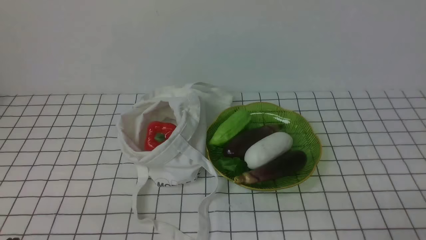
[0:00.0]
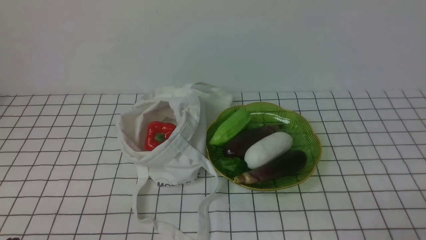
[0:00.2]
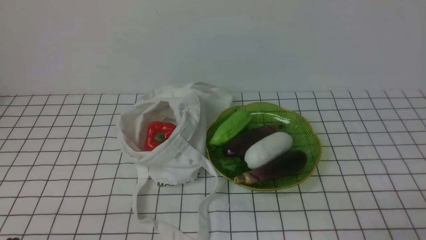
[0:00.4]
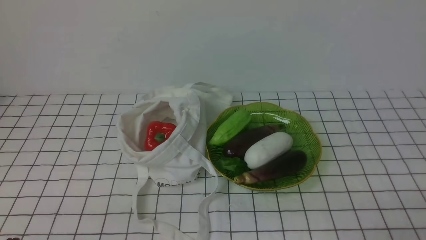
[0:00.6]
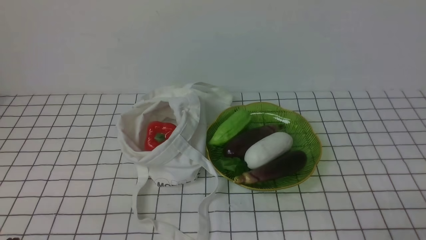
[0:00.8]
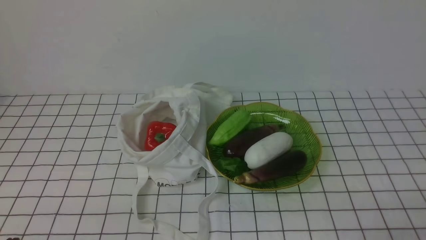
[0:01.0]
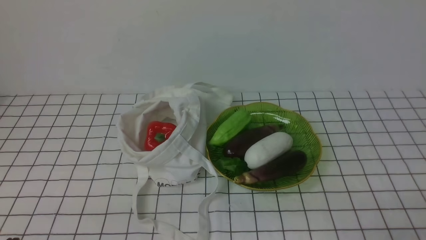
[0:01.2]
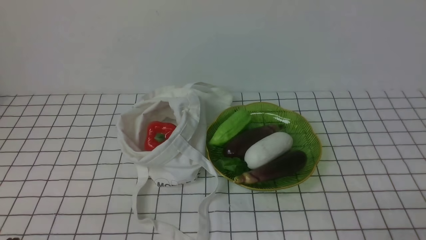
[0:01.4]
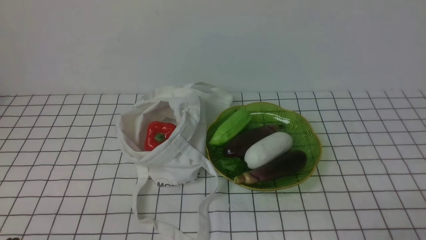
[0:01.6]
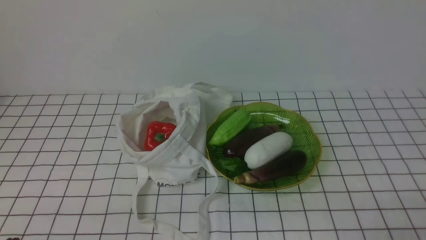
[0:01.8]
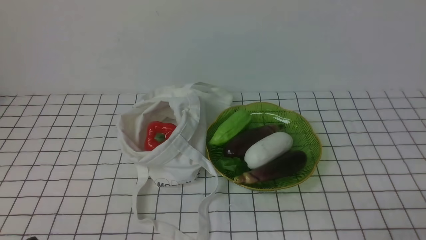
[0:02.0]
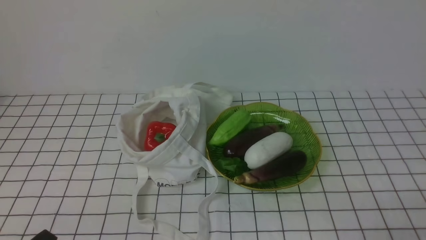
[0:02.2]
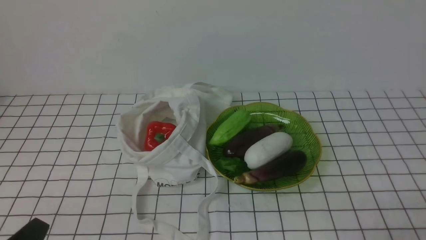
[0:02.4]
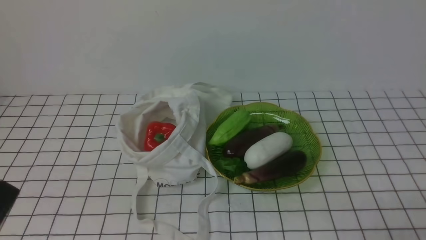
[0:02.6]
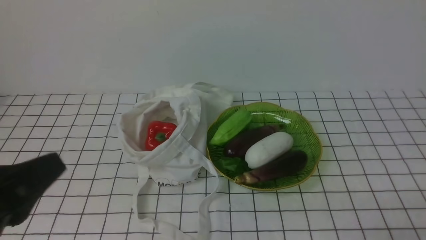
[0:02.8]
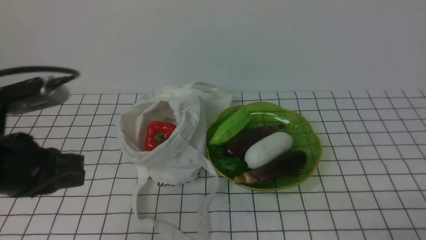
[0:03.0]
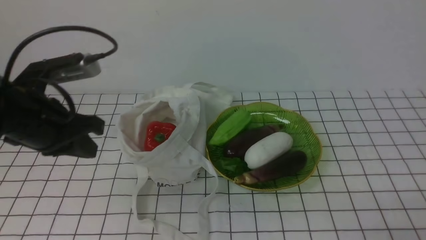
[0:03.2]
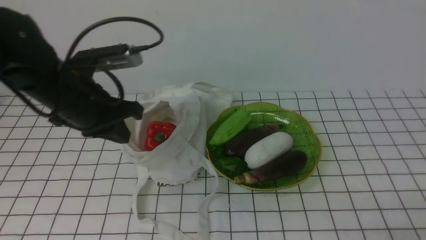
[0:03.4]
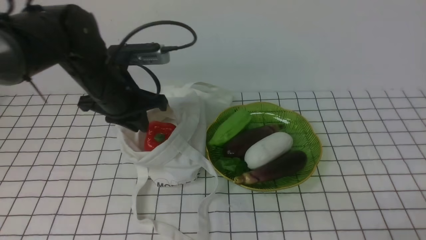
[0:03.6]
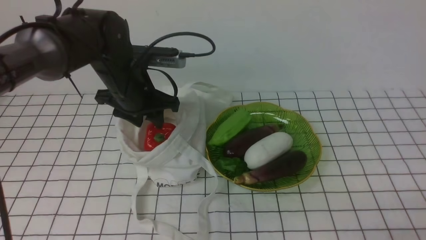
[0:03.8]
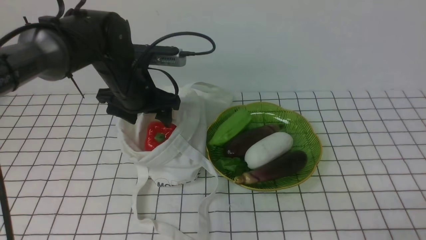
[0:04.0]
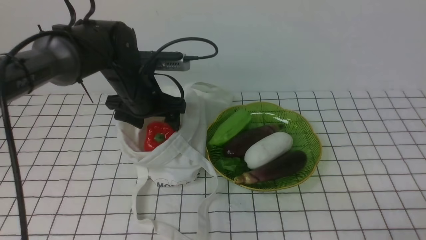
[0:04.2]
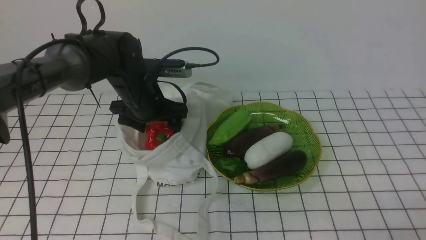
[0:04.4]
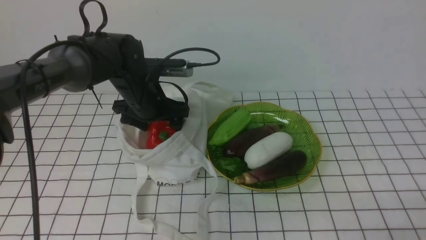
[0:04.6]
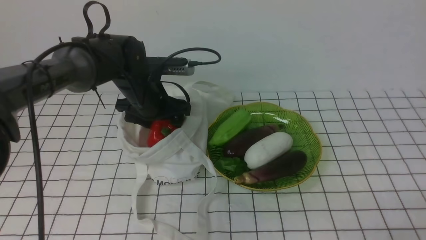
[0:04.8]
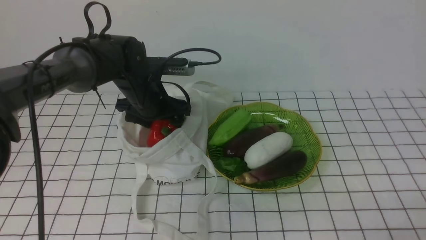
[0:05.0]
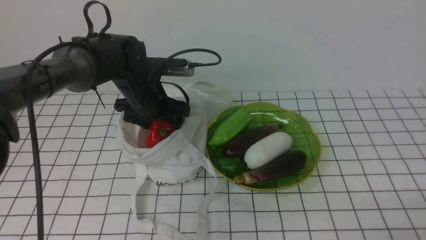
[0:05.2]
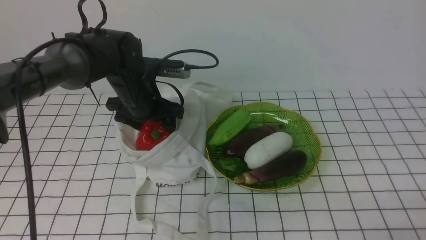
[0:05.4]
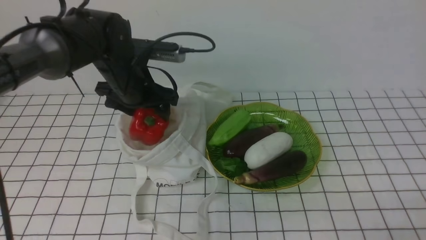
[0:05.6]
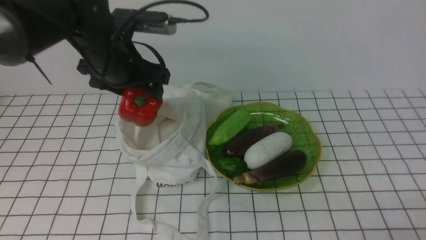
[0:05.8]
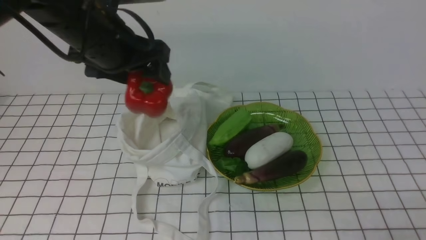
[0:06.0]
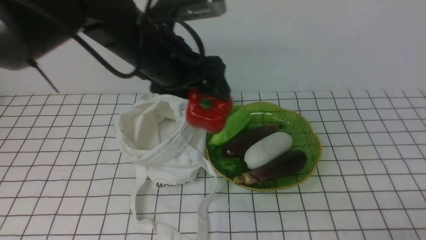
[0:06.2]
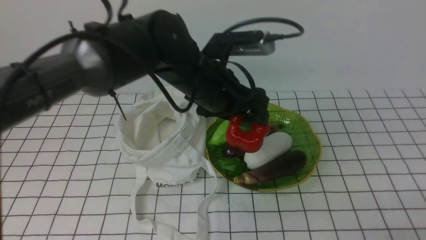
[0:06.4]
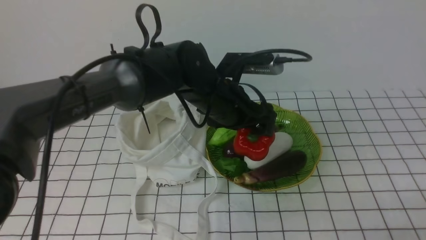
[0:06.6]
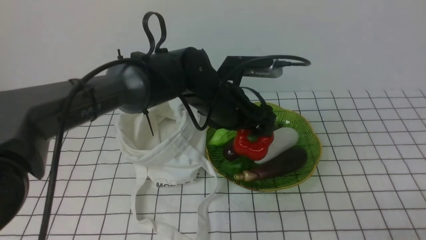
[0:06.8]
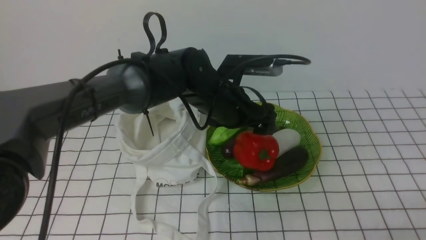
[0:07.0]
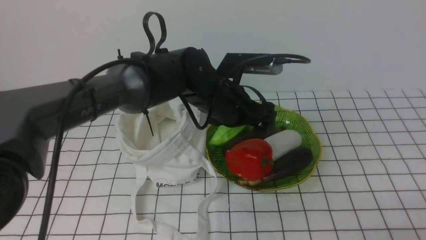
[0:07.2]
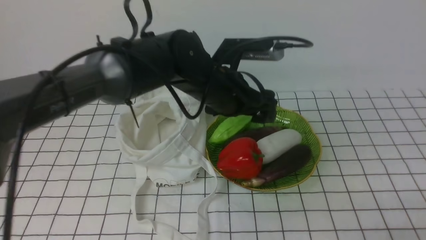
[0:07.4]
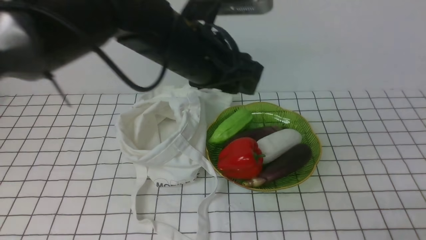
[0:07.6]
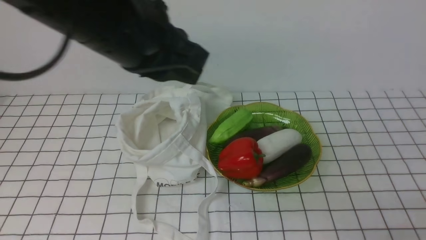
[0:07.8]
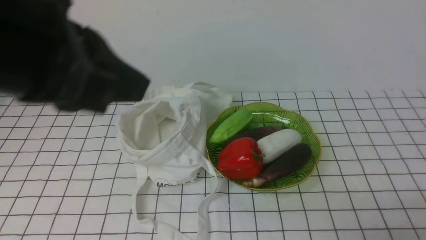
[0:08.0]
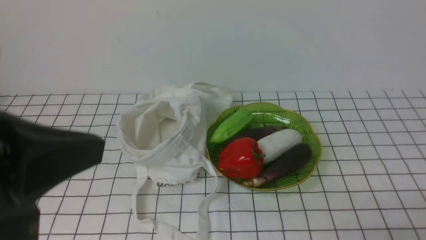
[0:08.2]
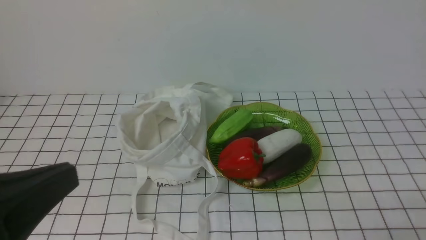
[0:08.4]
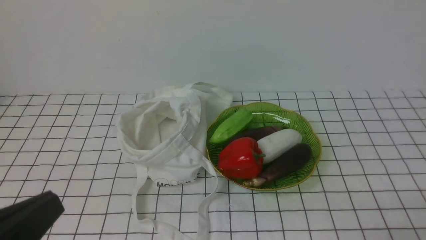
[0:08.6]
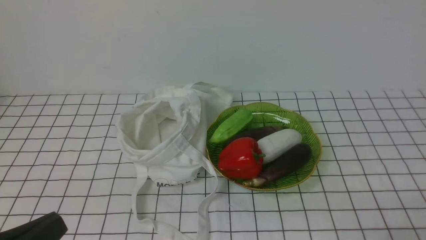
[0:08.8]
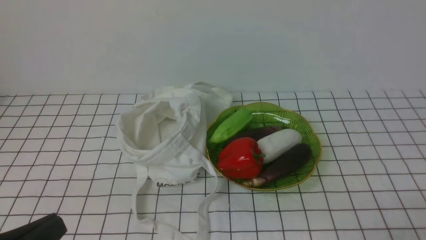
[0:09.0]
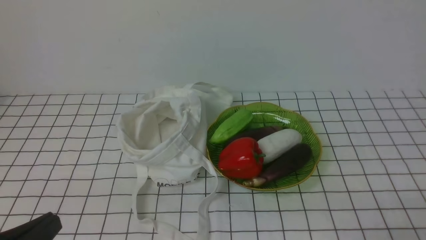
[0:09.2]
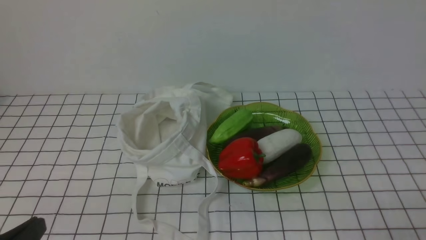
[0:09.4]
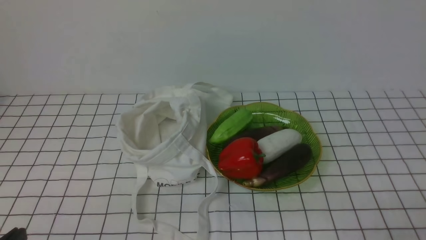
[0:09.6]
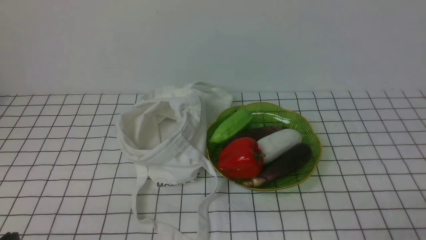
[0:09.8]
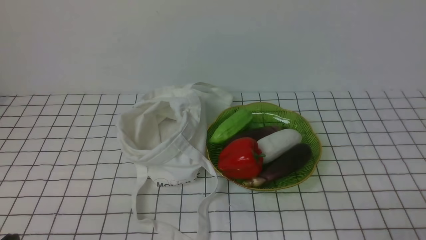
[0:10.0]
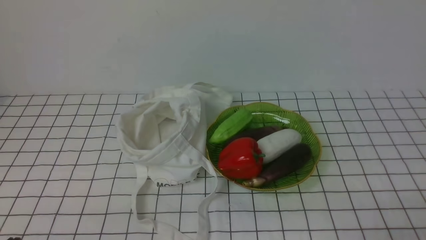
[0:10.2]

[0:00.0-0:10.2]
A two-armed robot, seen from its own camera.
Task of the whole recording: take vegetables from bag on white checkered tablecloth place on plate.
Step, 0:00.0 to 0:05.2: Grasp the bell pepper with left gripper.
Step, 0:05.4 to 0:07.2: Place the bell pepper on the plate with left gripper.
0:00.0 to 0:01.4: Neither gripper changes place.
0:01.4 to 0:03.0: The left gripper is displaced upward and forward by about 20 cm.
0:03.0 to 0:04.4: The left gripper goes some 25 cm forward, downward and to the right, and opens.
0:04.4 to 0:05.8: The left gripper travels upward by roughly 10 cm.
0:05.8 to 0:07.2: The left gripper heads to the right and downward, covering approximately 15 cm.
0:07.2 to 0:08.8: The left gripper is displaced backward and to the left by some 40 cm, and closes.
0:08.8 to 0:10.2: The left gripper goes some 10 cm downward.

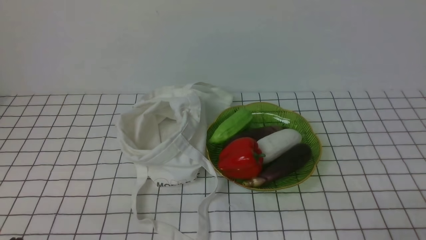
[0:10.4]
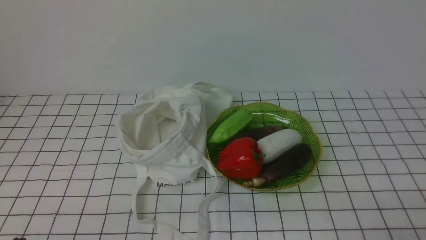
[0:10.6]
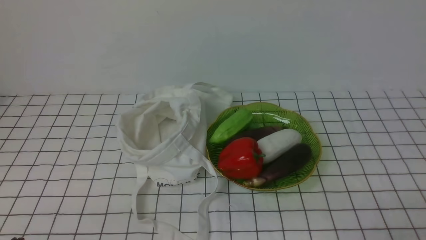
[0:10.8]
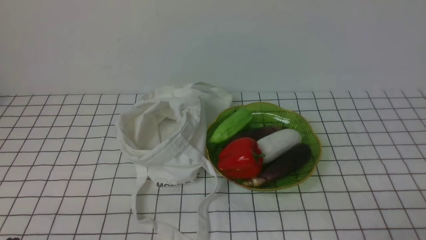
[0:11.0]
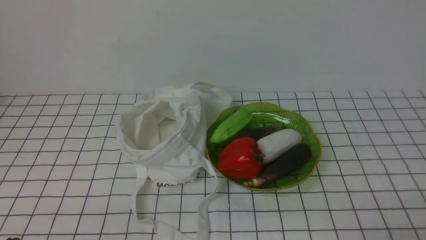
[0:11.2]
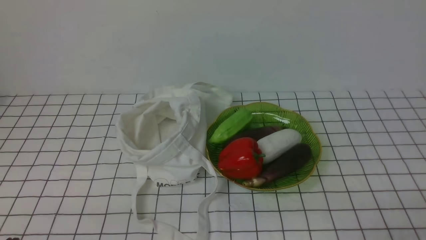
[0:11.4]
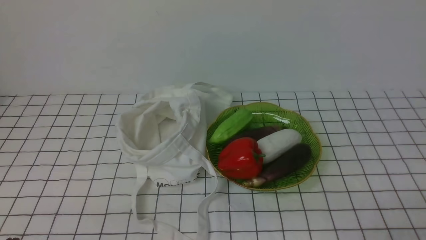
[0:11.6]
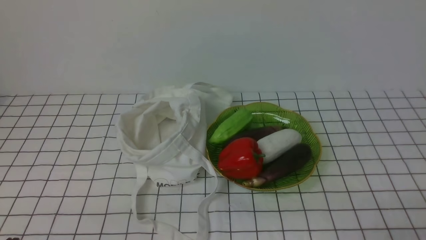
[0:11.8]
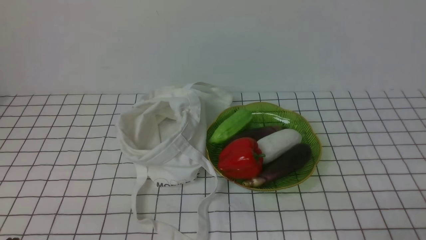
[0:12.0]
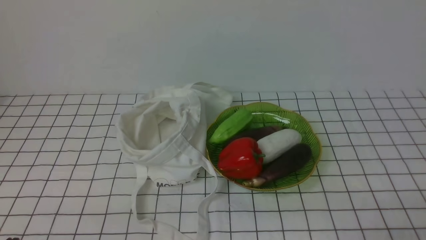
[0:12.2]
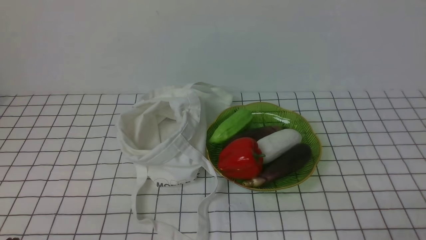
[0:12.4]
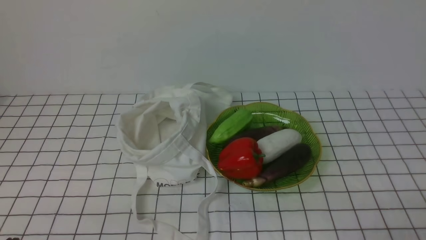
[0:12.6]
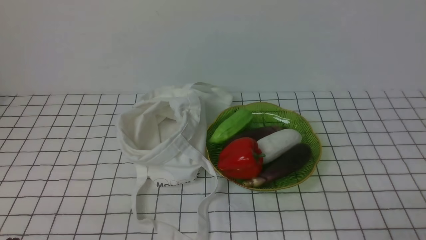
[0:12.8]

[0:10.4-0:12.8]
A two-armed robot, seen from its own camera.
Task of the whole recording: take vegetables from bag on white checkered tablecloth place on plate.
0:10.4 to 0:12.8: Neither gripper changes place.
